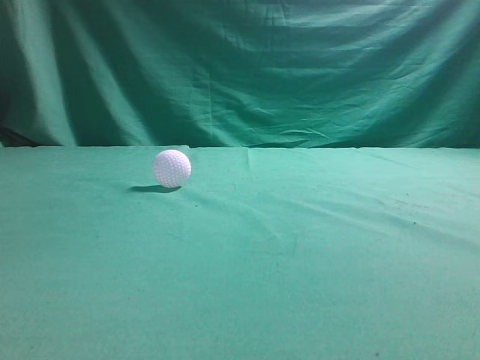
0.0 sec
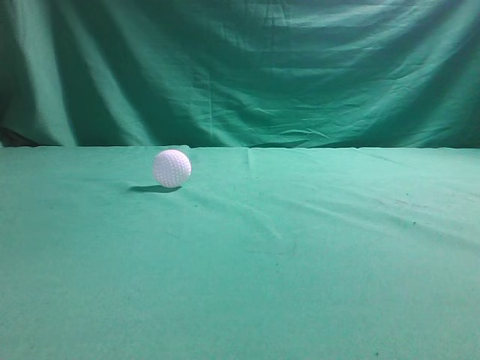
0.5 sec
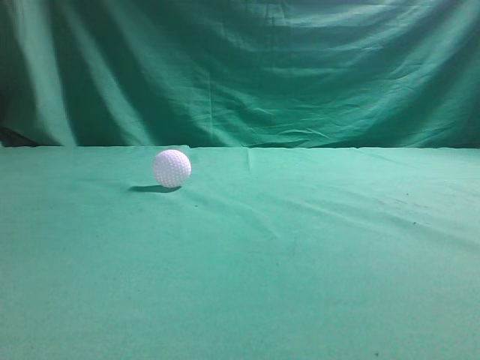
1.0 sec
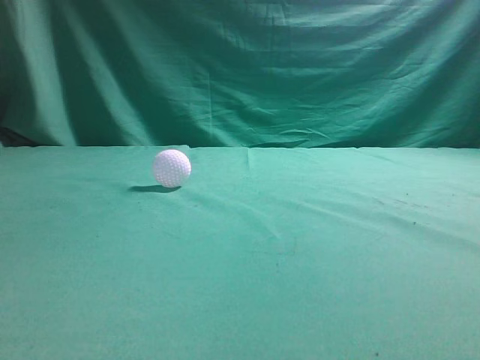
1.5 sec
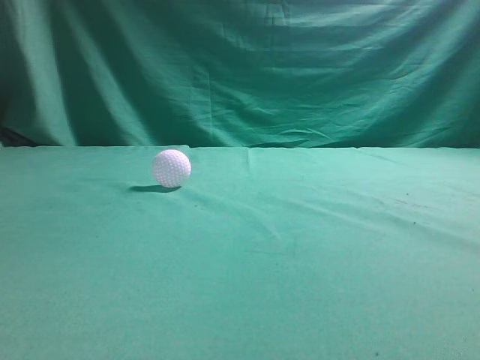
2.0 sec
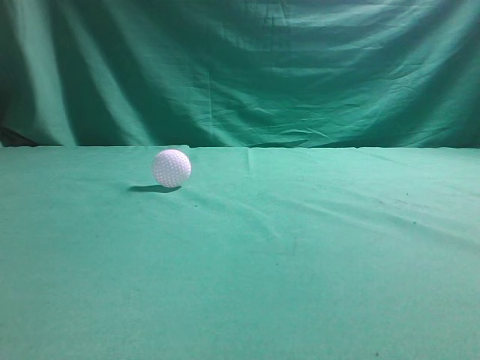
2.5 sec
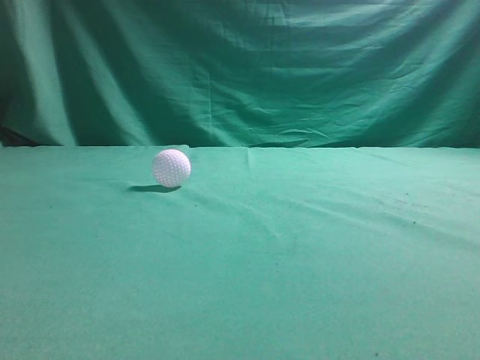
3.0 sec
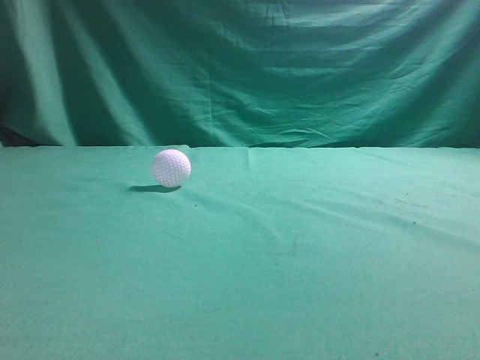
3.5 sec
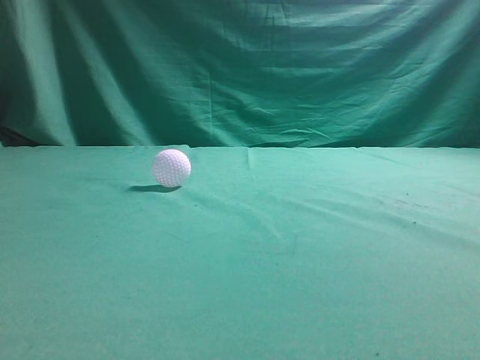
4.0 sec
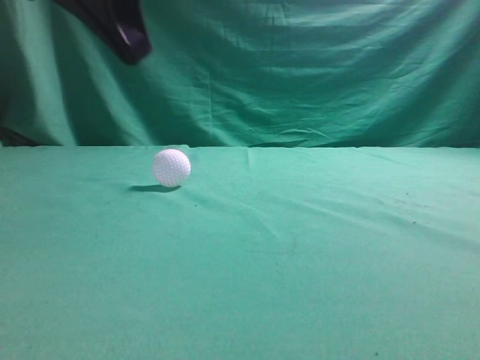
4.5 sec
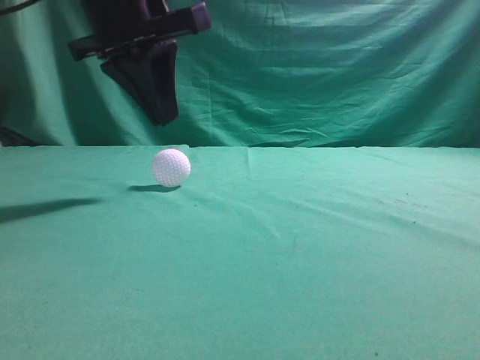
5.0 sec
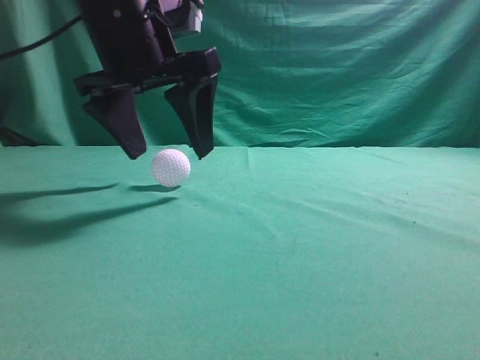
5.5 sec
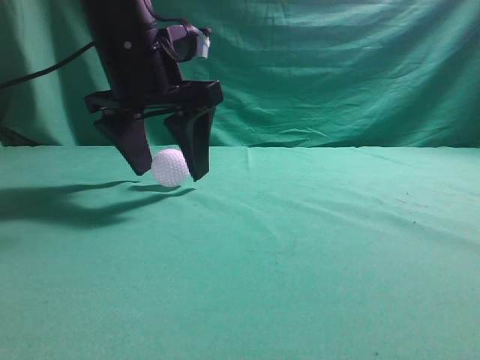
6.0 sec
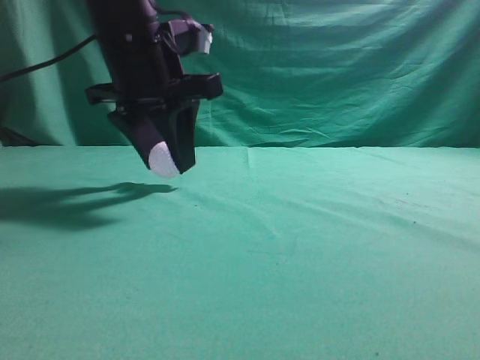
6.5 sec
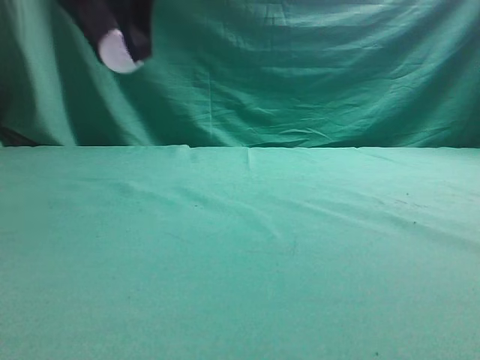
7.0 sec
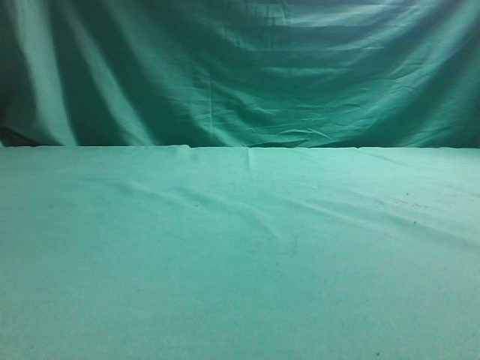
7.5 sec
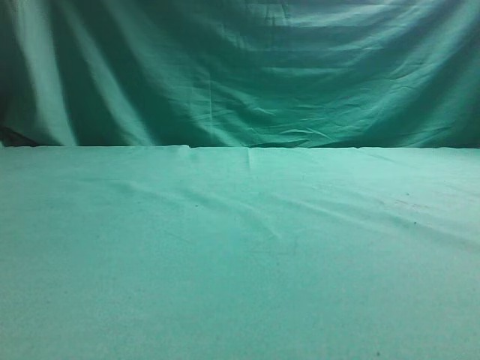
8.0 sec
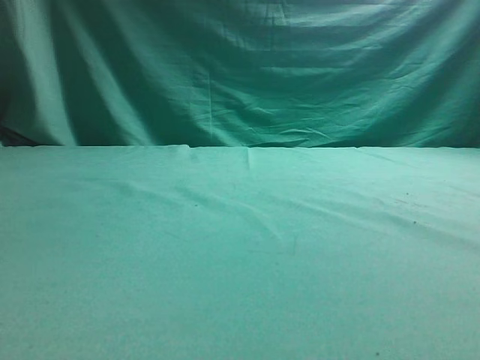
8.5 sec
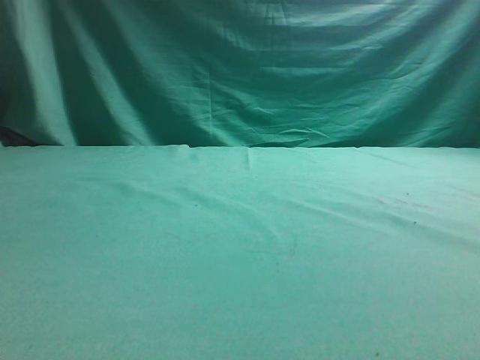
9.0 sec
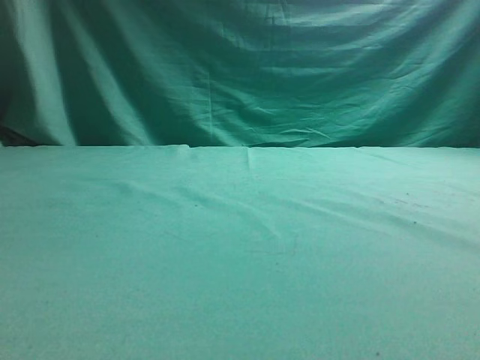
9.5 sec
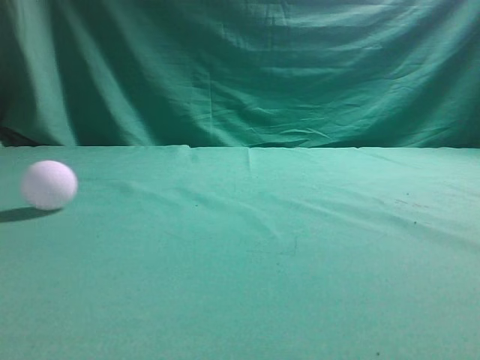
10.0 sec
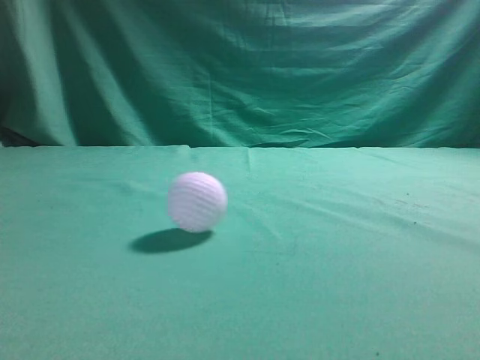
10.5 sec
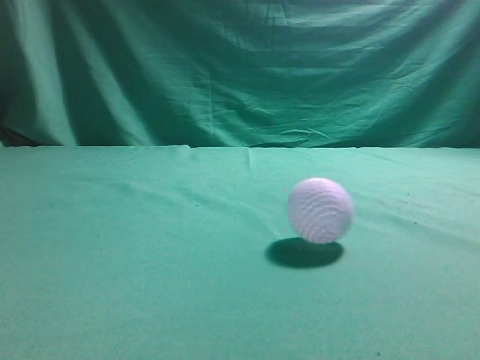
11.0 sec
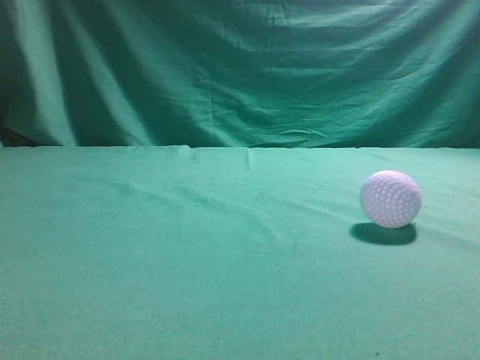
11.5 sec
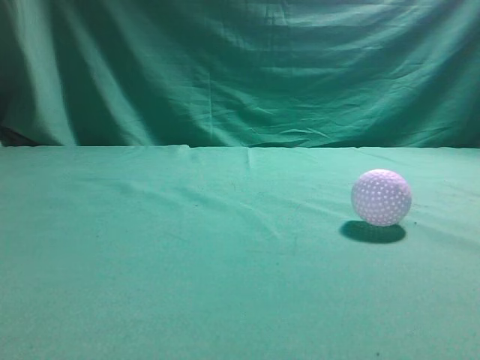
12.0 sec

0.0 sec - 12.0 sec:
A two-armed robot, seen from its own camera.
Task of the whole recording: pick up the ball and place it on the plate, then pick up the ball from the plate and put it in the center of the table.
Step, 0.0 sec - 7.0 sec: Grab the spherical object with your left arm.
4.0 sec - 6.0 sec: The left gripper heads forward, to the right and downward, covering some 25 cm, and opens.
6.0 sec - 8.0 sec: The left gripper goes roughly 25 cm to the left, and closes up.
8.0 sec - 10.0 sec: The left gripper shifts roughly 10 cm upward, and closes.
10.0 sec - 12.0 sec: The right gripper moves forward, upward and to the left, about 15 cm; the left gripper heads backward, covering roughly 25 cm.

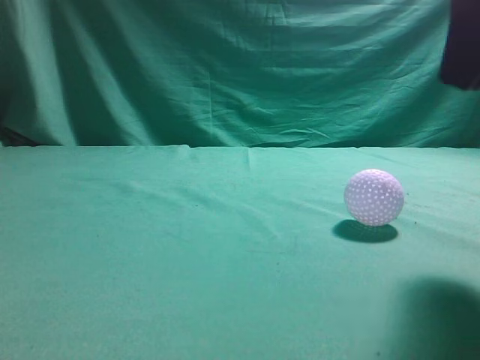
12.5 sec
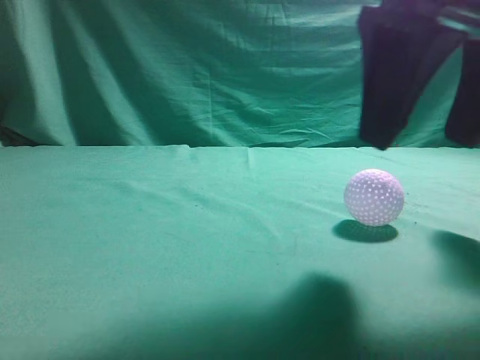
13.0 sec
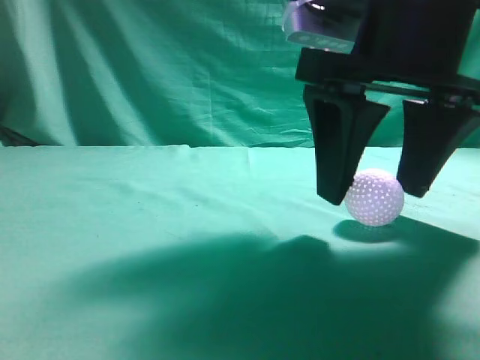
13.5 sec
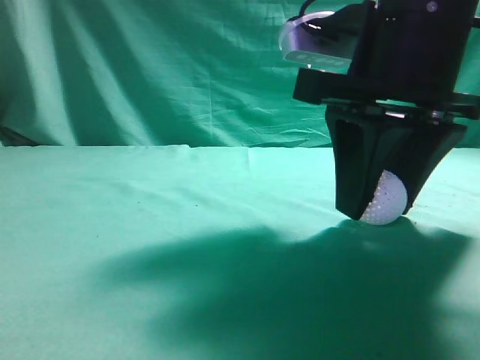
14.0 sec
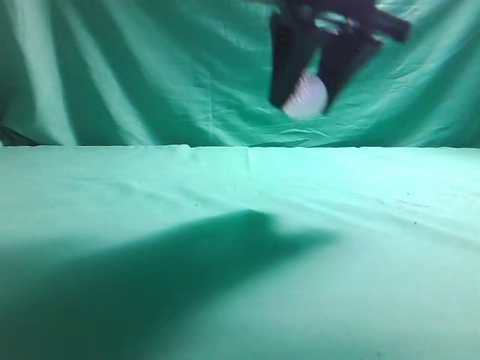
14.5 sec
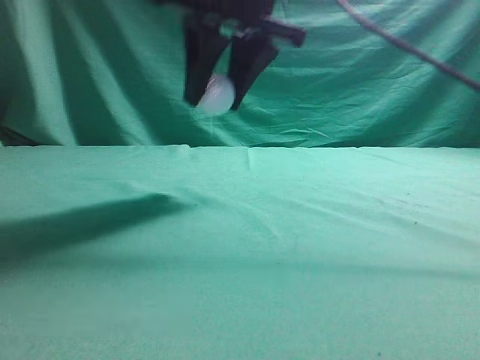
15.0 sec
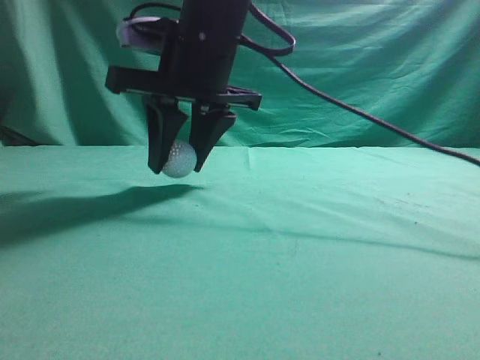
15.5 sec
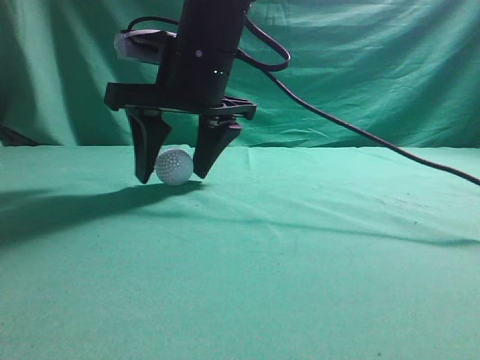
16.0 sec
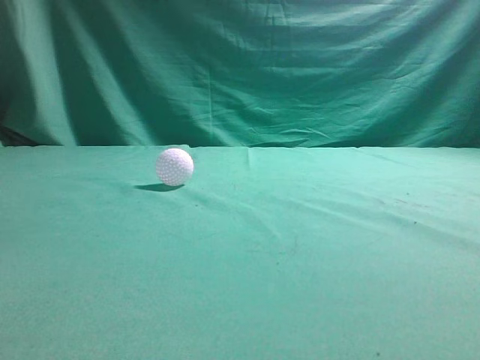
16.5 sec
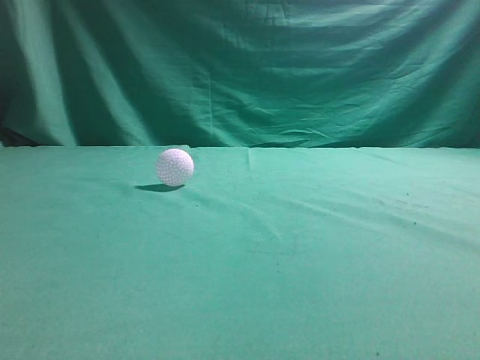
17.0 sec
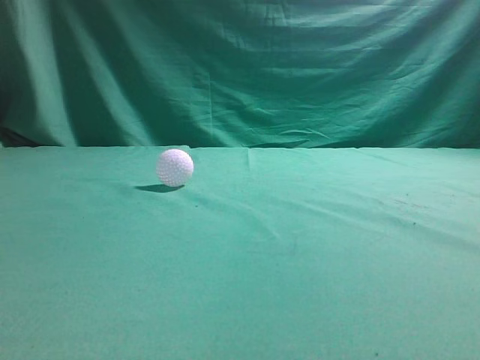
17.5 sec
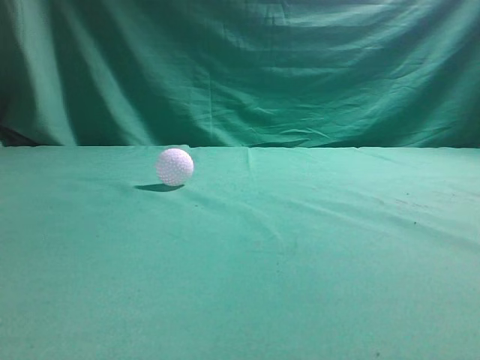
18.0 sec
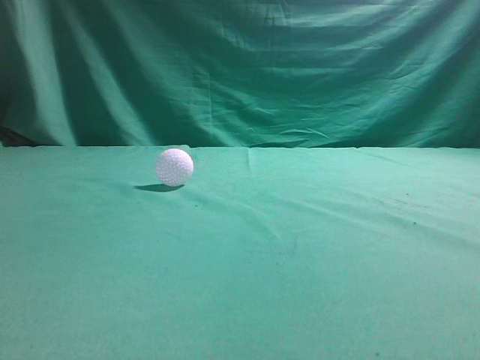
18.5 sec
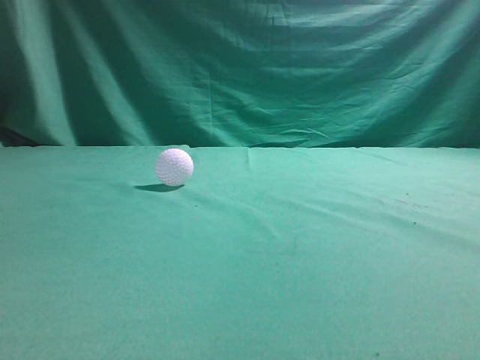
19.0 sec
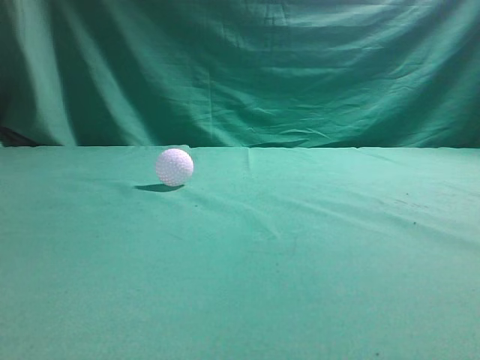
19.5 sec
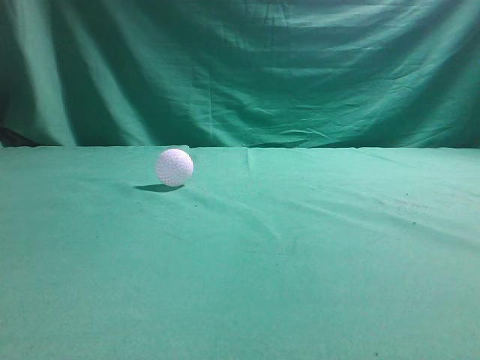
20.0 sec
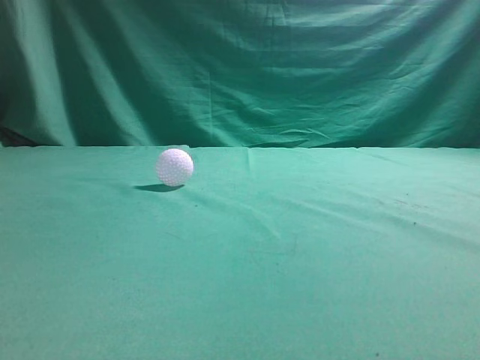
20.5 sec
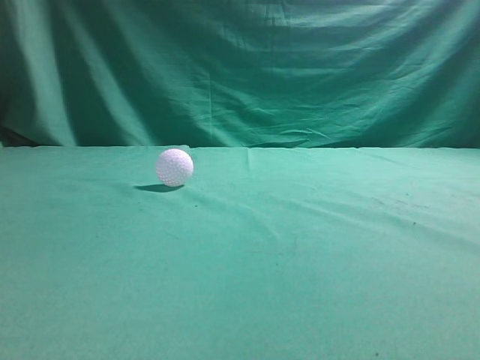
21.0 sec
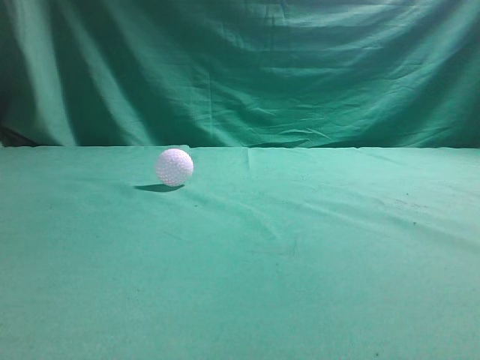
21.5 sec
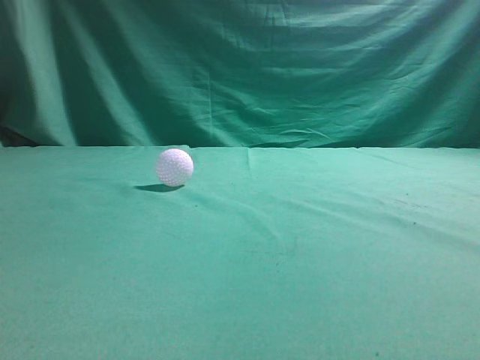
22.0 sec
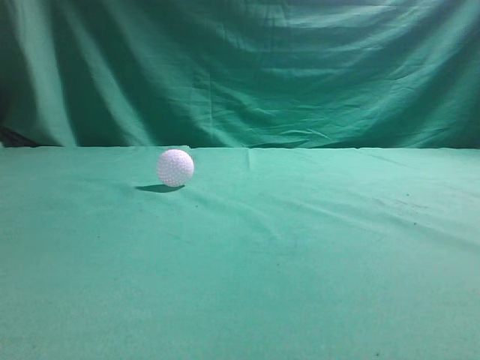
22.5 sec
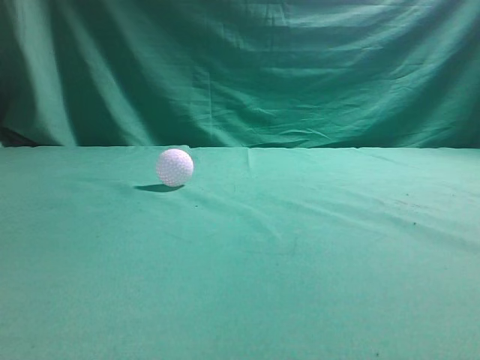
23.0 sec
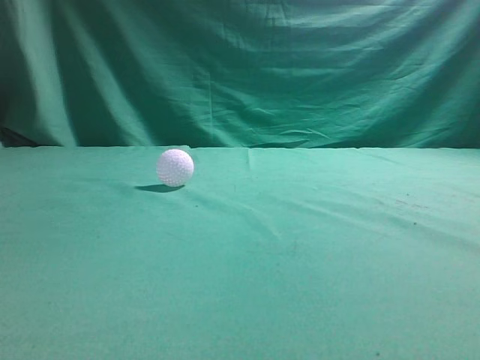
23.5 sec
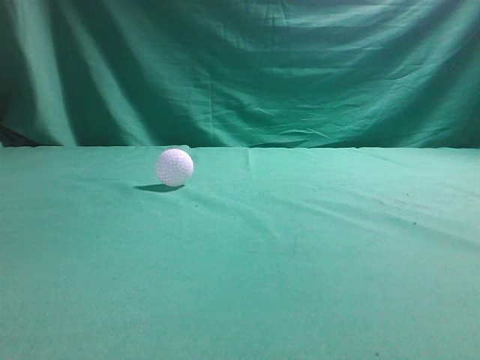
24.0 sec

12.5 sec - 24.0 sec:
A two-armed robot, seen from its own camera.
Task of the whole recording: pick up the ball and place it on the plate, then pick up the ball from the plate and put it in the center of the table.
Step, 12.5 sec - 14.5 sec: Grab the rolling spherical object.
Step, 15.5 sec - 16.5 sec: Put the picked-up object on the table.
12.5 sec - 14.5 sec: The right gripper is displaced forward and to the left by roughly 15 cm, and opens.
14.5 sec - 16.5 sec: The right gripper is displaced upward and to the left by approximately 15 cm, and closes.
